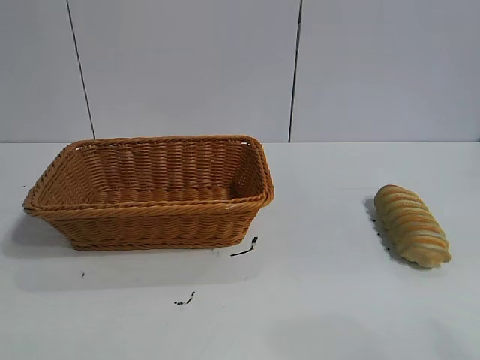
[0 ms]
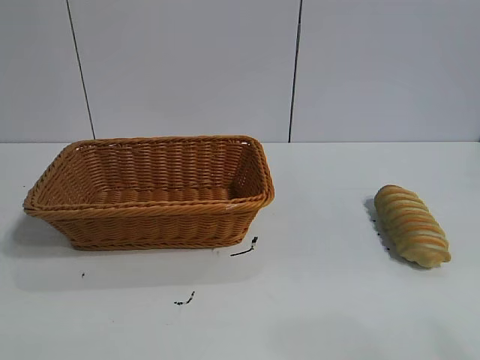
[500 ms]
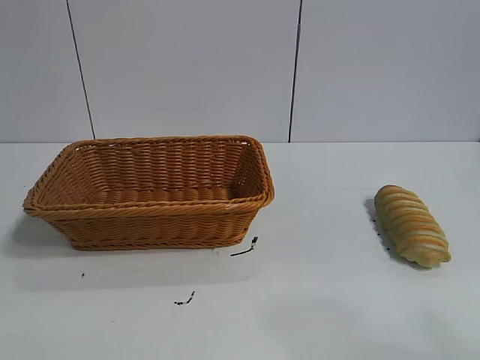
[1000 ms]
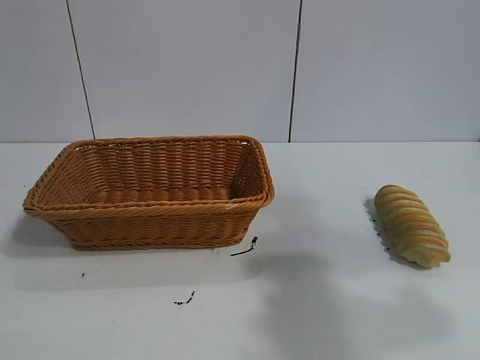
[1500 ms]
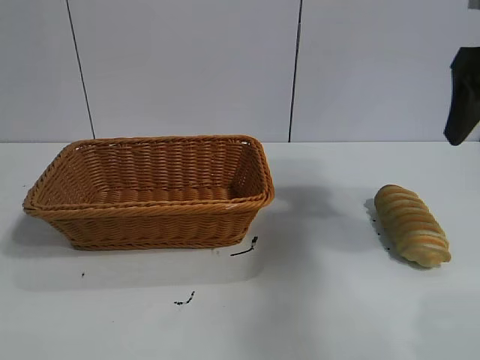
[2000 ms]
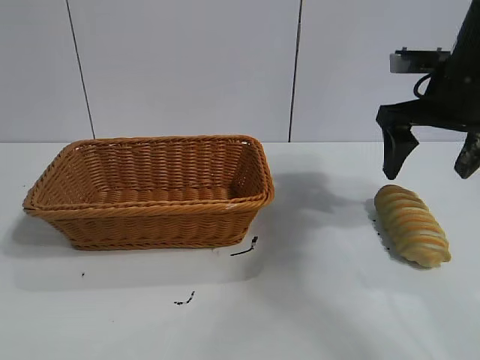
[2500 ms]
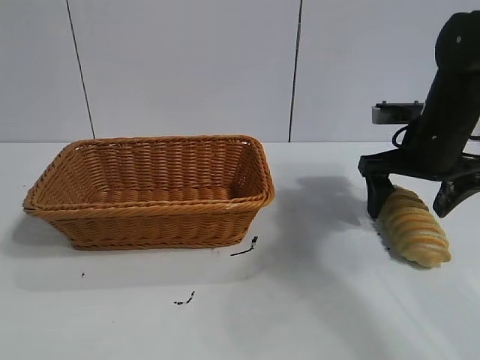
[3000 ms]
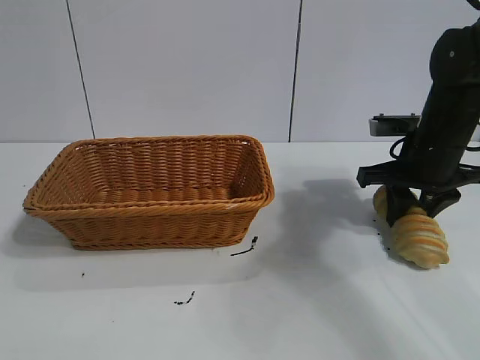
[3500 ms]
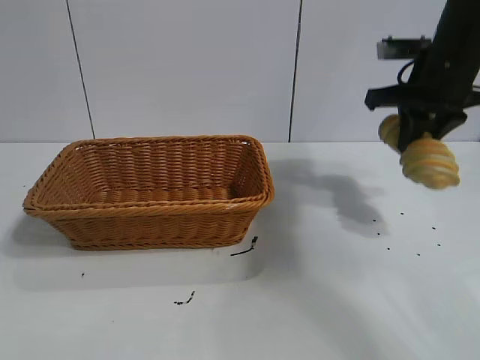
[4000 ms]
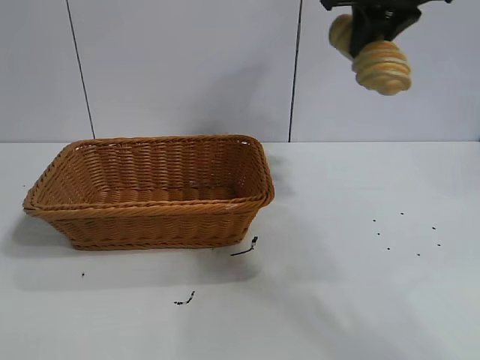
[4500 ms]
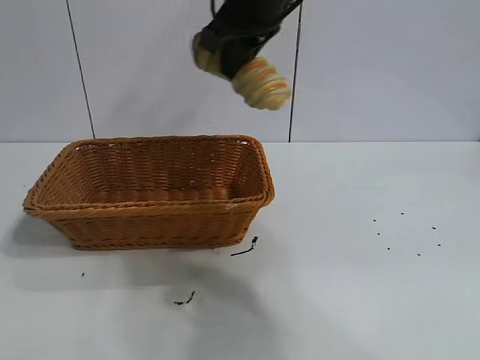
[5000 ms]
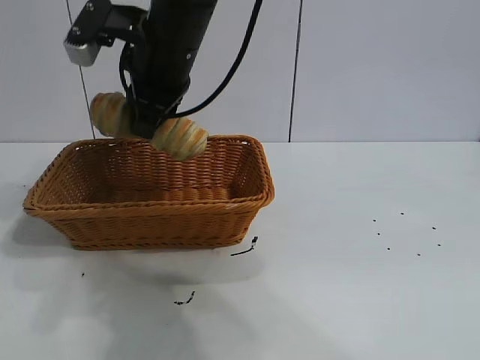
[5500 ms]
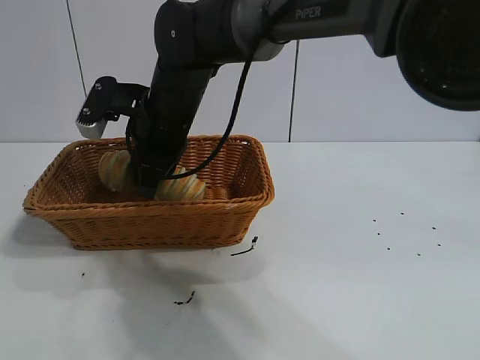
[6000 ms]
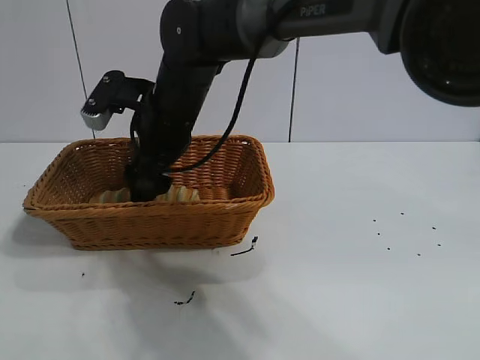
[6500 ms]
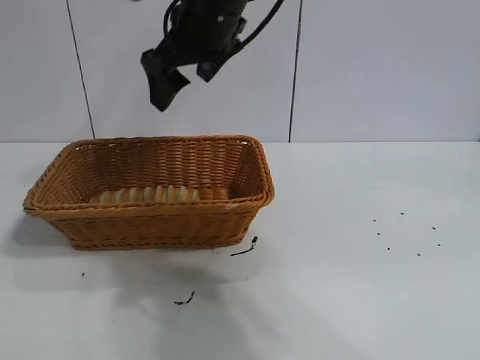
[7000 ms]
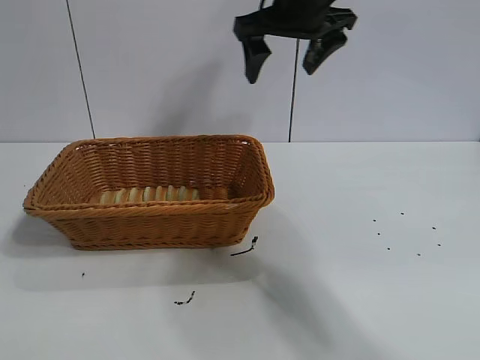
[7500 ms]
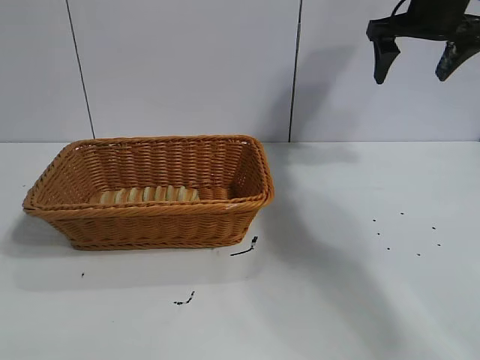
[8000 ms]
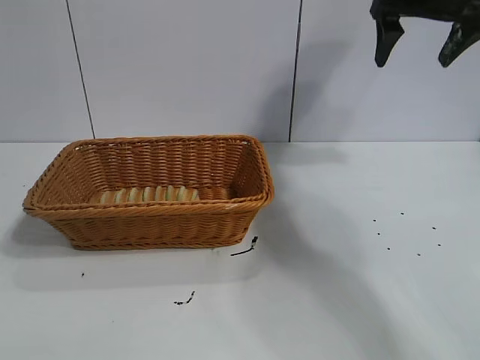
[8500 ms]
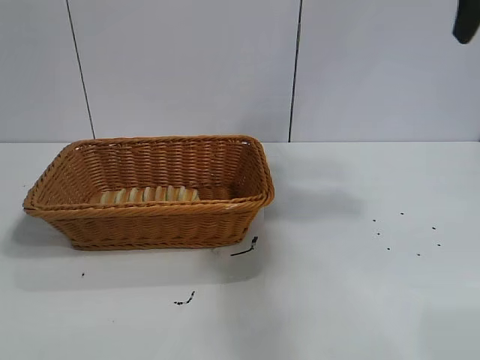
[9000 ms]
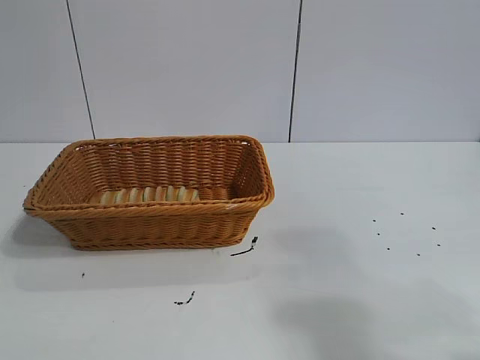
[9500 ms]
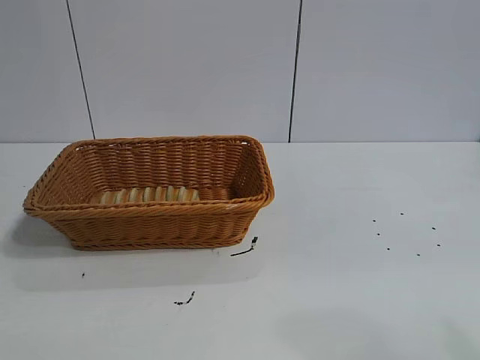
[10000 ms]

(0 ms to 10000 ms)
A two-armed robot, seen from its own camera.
Task of the whole recording: pick up the long bread and put it into the basket.
Step, 2000 ms - 3500 ms: Grasp the long bread with right gripper.
Step, 4000 ms - 6500 ms: Place the long bread in the basket with right gripper.
